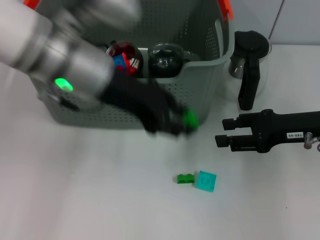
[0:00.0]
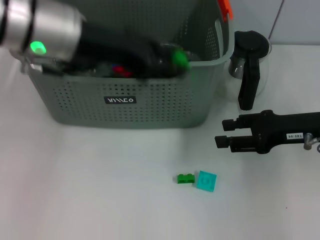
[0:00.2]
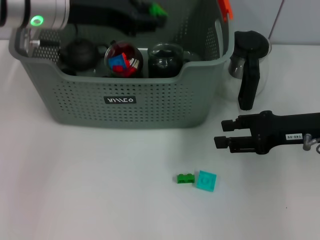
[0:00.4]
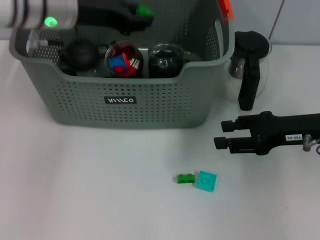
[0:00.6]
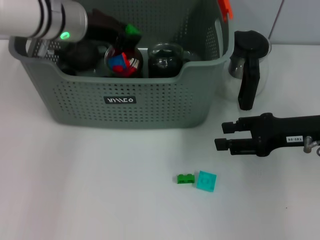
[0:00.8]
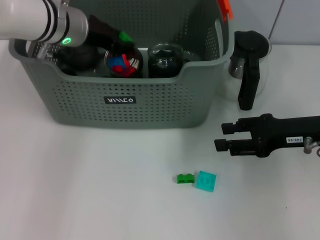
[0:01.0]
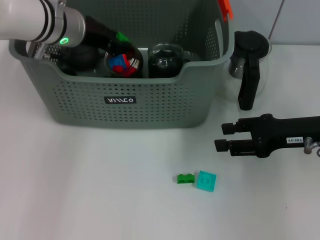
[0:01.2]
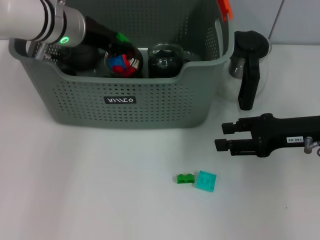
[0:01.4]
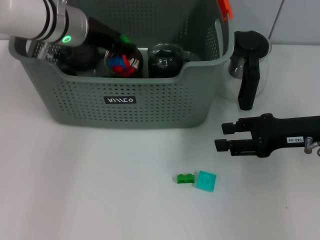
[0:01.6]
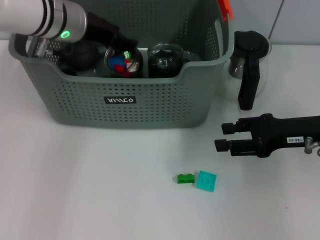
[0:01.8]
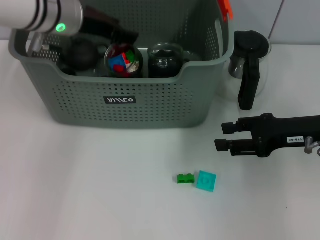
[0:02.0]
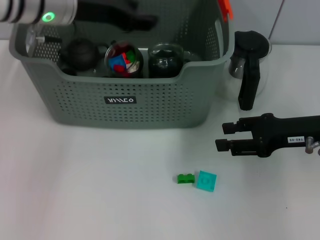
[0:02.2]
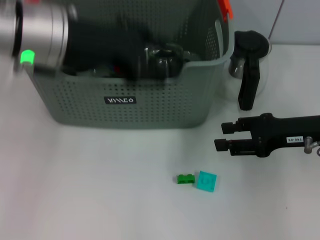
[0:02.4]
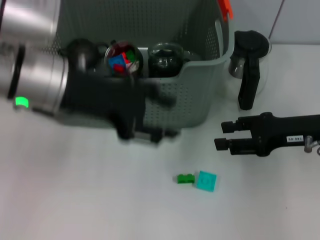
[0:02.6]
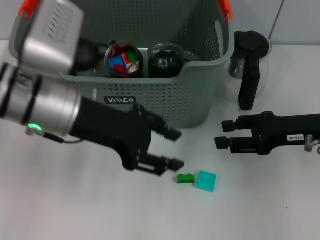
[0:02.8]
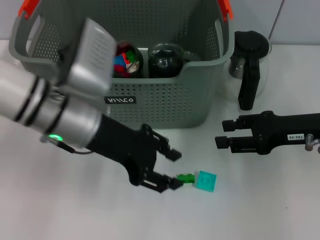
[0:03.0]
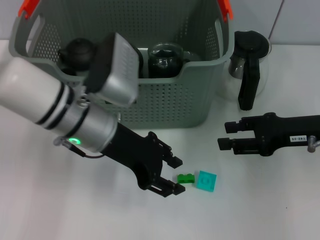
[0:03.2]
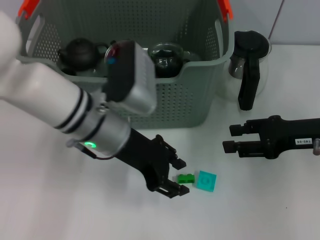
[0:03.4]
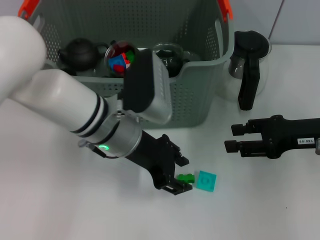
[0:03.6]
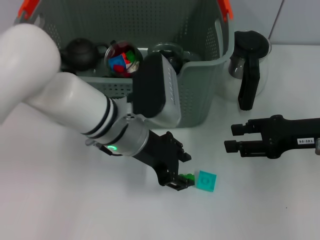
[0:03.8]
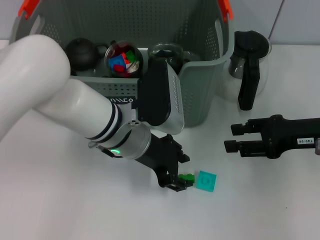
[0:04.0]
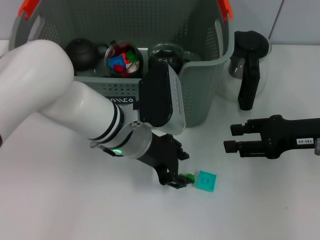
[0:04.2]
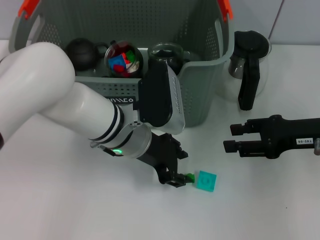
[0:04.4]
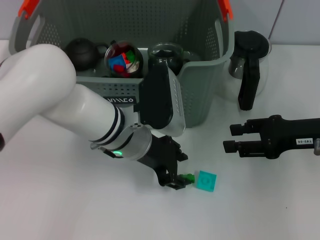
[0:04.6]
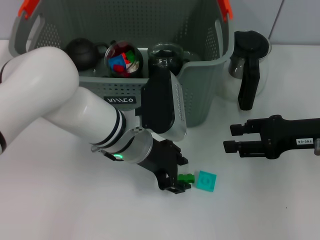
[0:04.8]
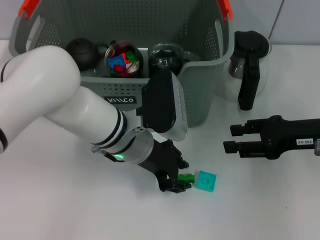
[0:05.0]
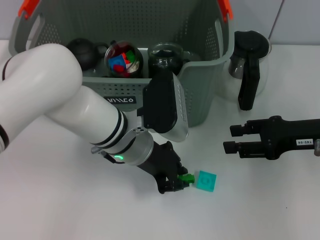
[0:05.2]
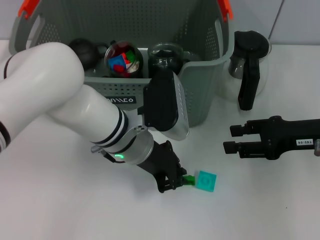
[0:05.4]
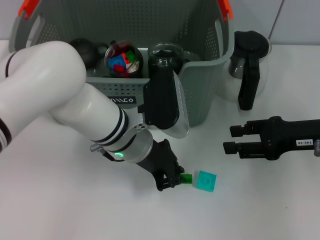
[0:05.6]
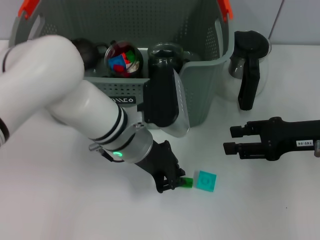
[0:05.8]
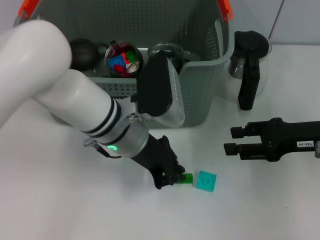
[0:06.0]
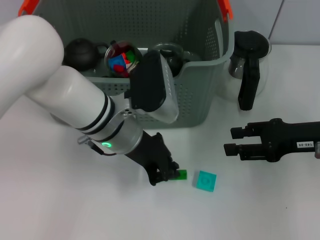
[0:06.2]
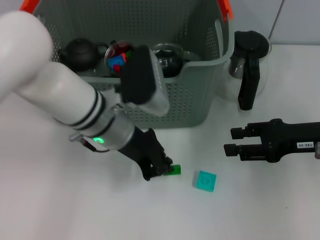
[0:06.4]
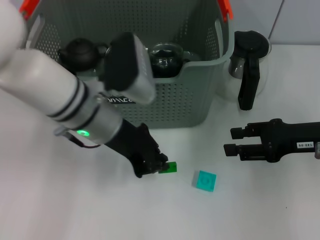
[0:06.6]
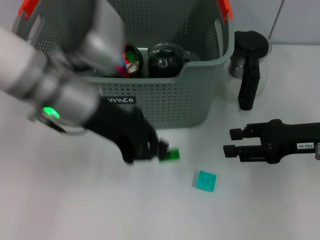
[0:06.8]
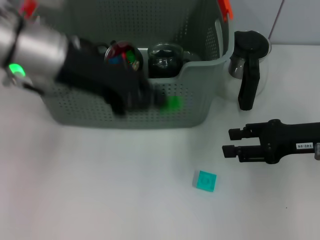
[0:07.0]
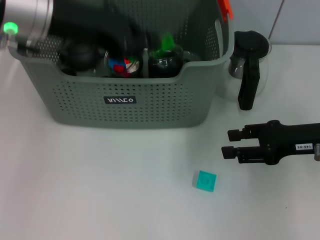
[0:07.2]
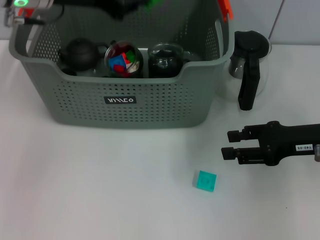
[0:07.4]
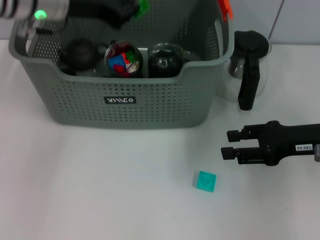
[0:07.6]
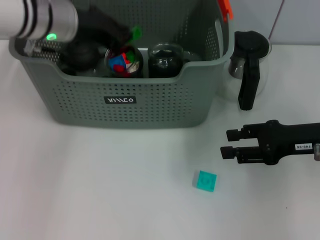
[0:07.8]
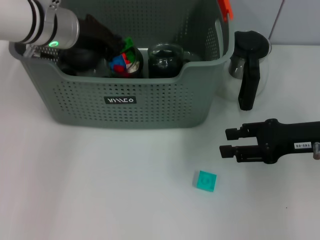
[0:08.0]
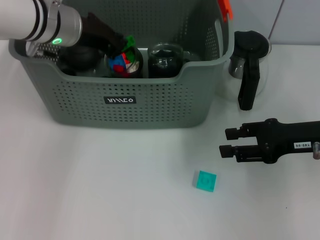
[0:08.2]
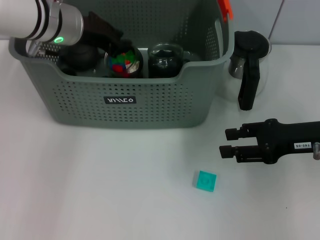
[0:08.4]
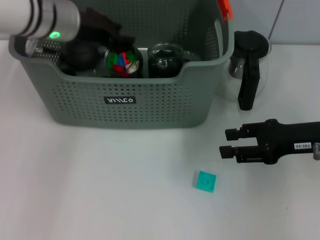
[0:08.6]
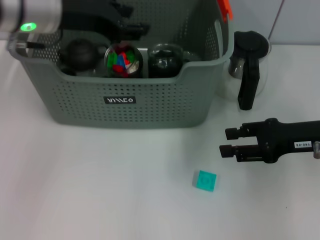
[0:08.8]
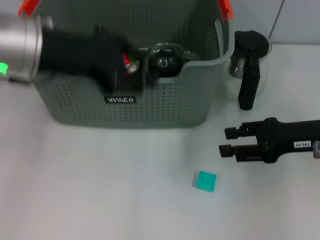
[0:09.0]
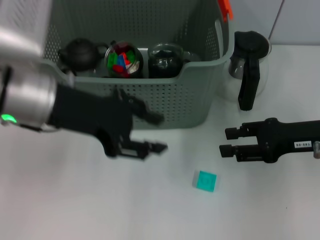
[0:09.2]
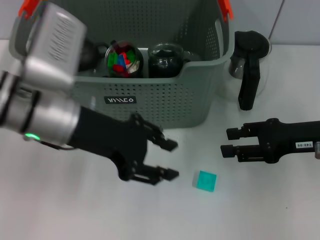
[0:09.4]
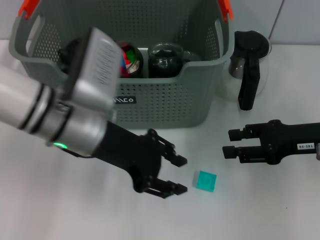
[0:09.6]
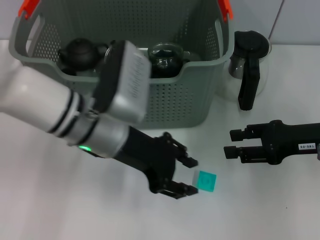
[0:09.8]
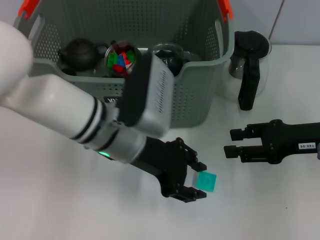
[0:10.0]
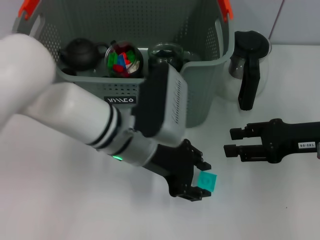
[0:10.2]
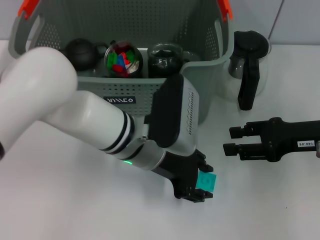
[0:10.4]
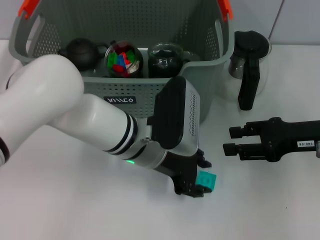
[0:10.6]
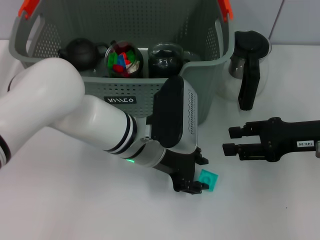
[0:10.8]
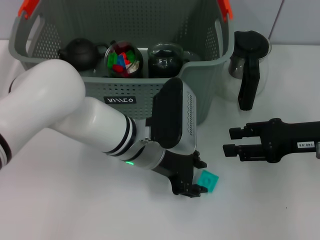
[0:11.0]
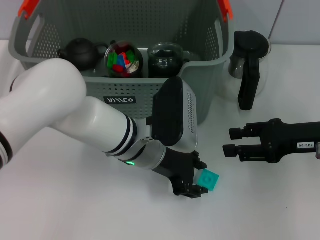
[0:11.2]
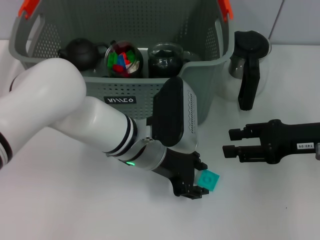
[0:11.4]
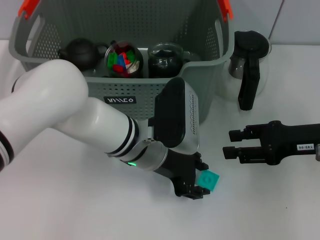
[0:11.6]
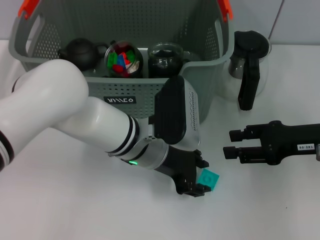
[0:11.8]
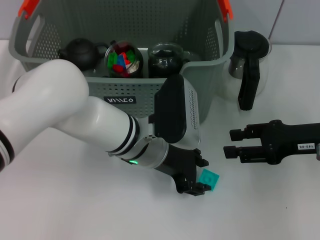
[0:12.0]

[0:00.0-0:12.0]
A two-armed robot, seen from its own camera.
Task of the whole recording: pick up the teacup on the table and place it into the storage bin, pick up the block on the table and place it into the storage bin.
Step, 0:00.0 to 0:02.0: Place the green block in the storage box with left gripper.
Step, 0:02.2 to 0:05.4: Grasp the green block with left gripper.
Step, 0:05.6 to 0:08.4: Place the green block in the storage box with left gripper.
0:00.0 to 0:01.6: The left gripper travels forward by some 10 cm.
0:01.6 to 0:03.0: The left gripper moves backward, about 10 cm.
0:03.0 to 0:04.4: The left gripper shifts some 10 cm to the right and downward.
0:04.4 to 0:06.0: The left gripper closes.
0:06.0 to 0:07.6: The left gripper heads upward, to the left and forward, covering roughly 15 cm.
0:07.6 to 0:09.0: The left gripper moves backward, approximately 10 cm, and opens.
0:09.0 to 0:10.4: The left gripper travels to the right and downward by some 20 cm.
0:10.4 to 0:12.0: The grippers stay close to where they were, moving slightly.

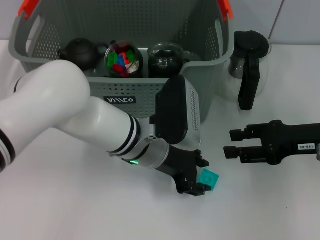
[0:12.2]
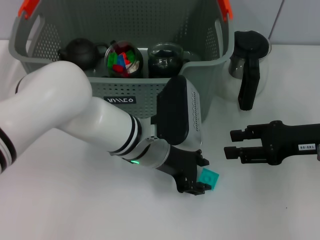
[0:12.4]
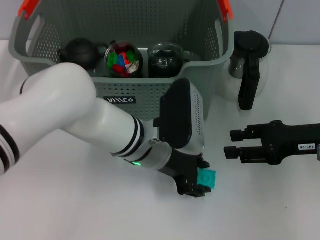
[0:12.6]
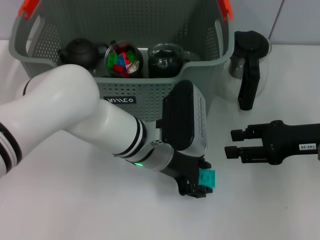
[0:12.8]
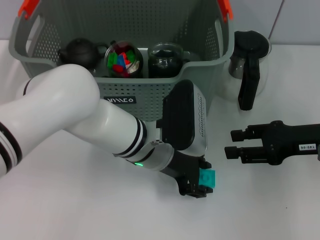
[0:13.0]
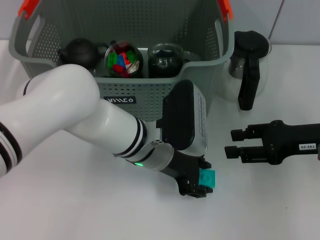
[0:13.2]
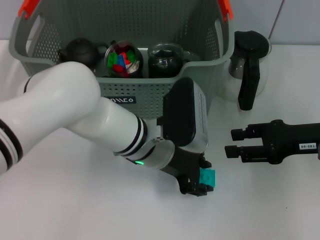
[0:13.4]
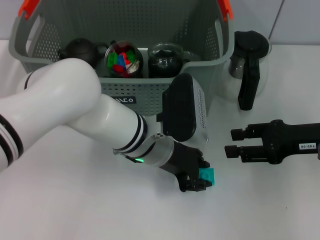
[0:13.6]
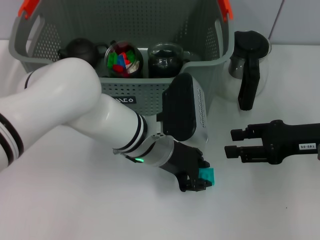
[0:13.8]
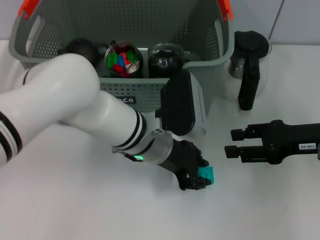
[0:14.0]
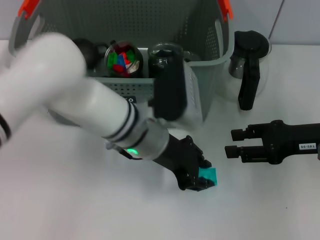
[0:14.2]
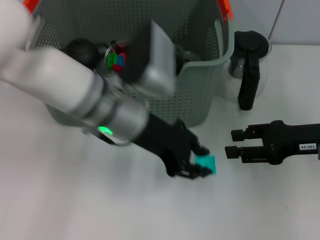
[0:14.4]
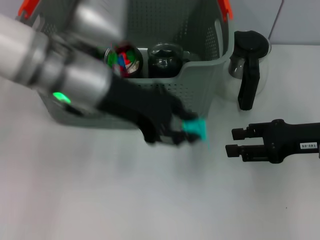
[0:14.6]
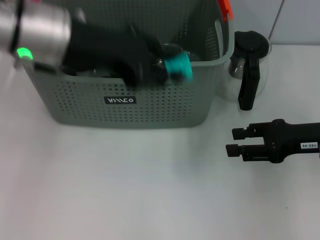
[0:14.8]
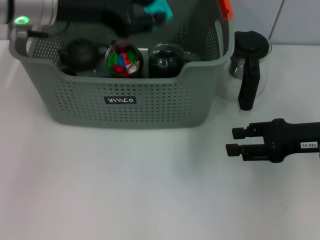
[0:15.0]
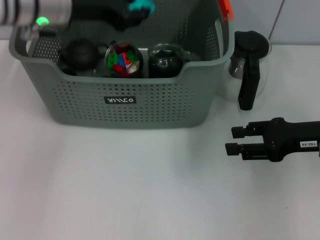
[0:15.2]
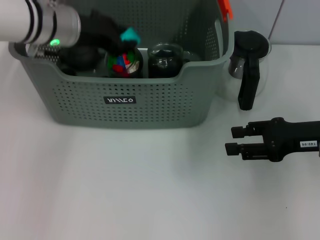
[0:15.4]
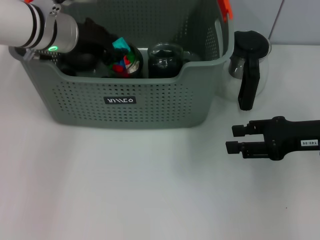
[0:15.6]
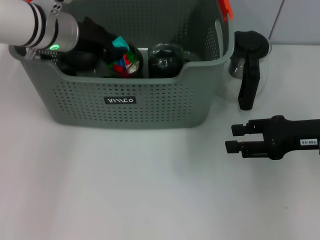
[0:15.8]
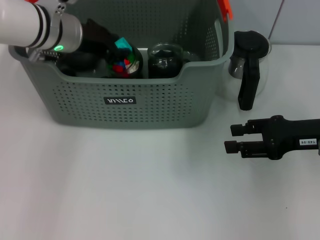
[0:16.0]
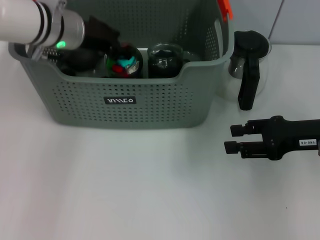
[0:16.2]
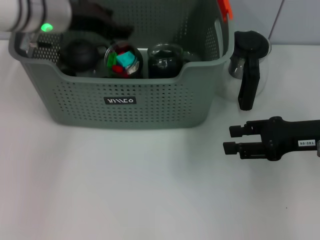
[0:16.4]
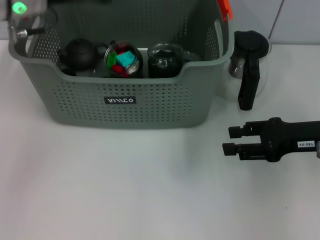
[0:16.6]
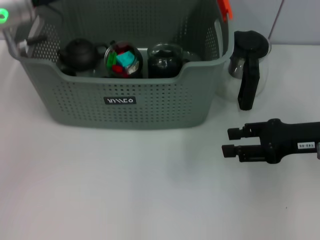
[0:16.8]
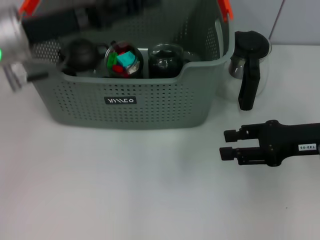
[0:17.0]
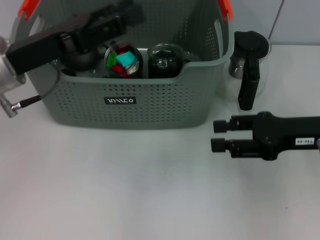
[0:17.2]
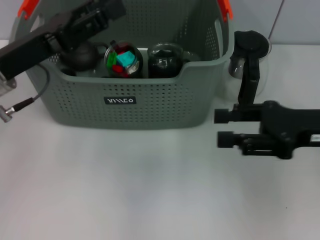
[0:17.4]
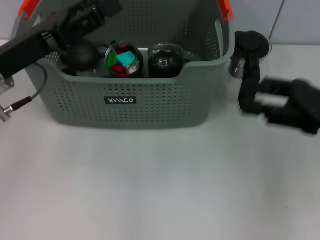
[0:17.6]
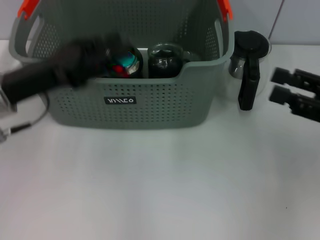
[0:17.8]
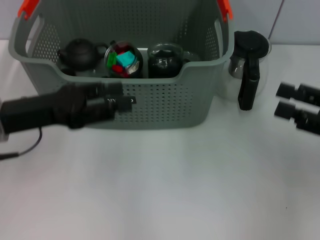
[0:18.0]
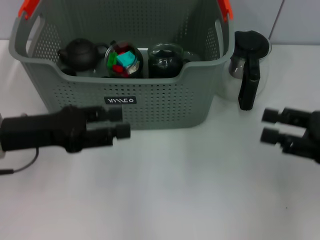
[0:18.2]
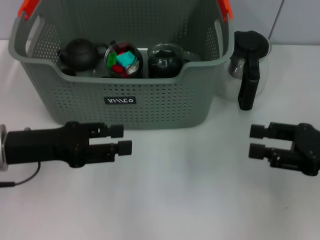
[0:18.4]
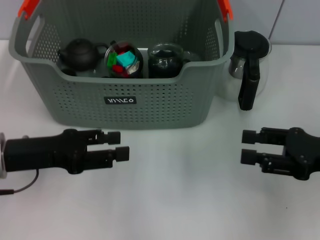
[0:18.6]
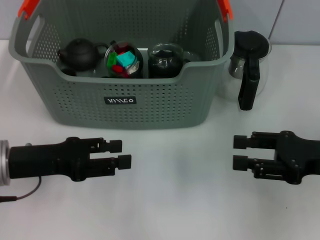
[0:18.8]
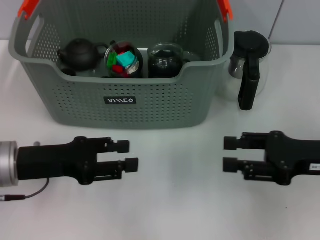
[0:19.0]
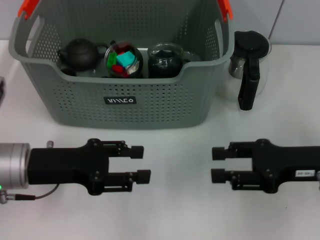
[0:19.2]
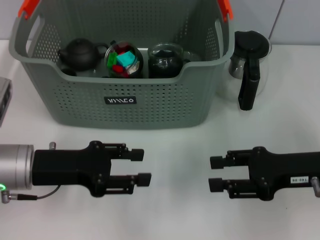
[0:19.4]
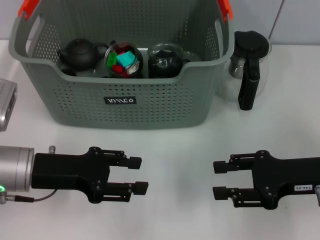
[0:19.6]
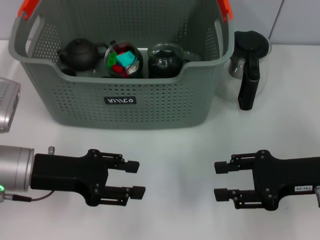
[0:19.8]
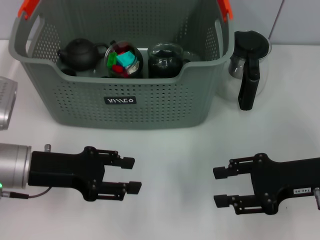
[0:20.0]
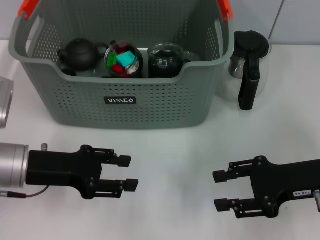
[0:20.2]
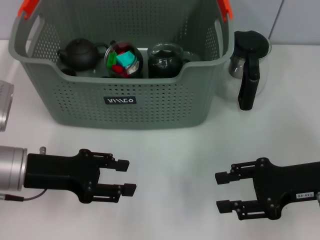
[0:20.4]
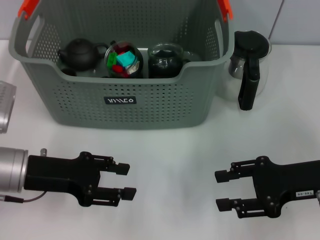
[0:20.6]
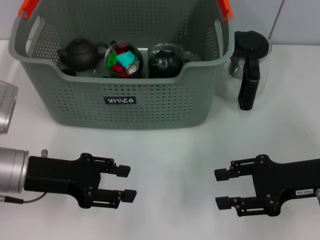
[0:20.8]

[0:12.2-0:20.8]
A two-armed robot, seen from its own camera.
Task of the whole recording: pick up the teacup on the table and place it into the storage bin, pick up the block on the table and place it into the storage bin.
Step, 0:14.2 to 0:16.4: Place the light blue block in the storage box with left gripper.
0:12.2 to 0:13.6: The two grippers keep their place.
0:13.6 to 0:15.0: The left gripper goes about 20 cm upward and to the left.
0:15.0 to 0:16.6: The left gripper goes downward and returns, some 10 cm each way.
0:16.6 to 0:18.0: The left gripper shifts some 15 cm backward and downward, while the right gripper changes place by some 5 cm.
0:18.0 to 0:19.4: The left gripper changes place by roughly 5 cm. The right gripper is displaced to the left by some 5 cm.
0:19.4 to 0:20.8: The grippers stay close to where they were, moving slightly.
